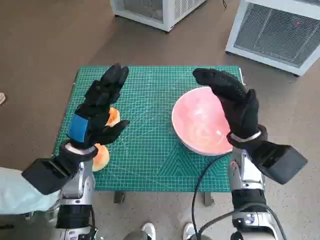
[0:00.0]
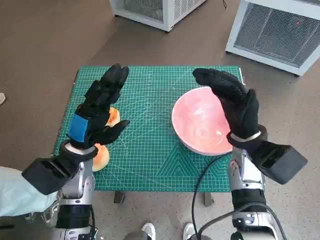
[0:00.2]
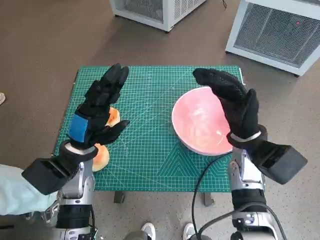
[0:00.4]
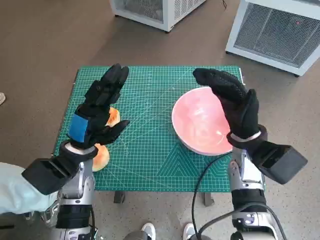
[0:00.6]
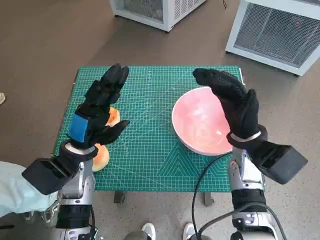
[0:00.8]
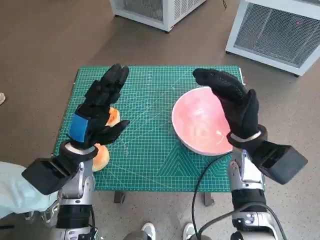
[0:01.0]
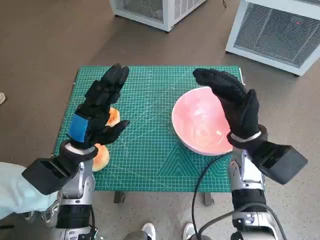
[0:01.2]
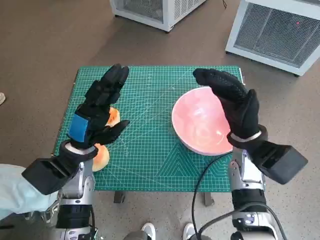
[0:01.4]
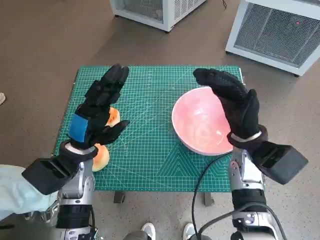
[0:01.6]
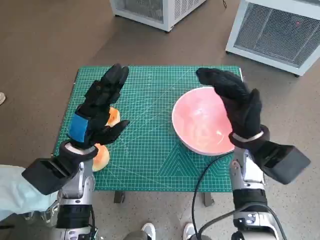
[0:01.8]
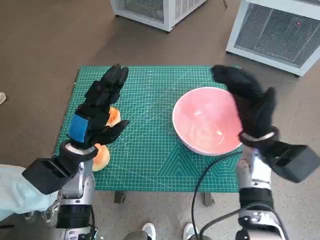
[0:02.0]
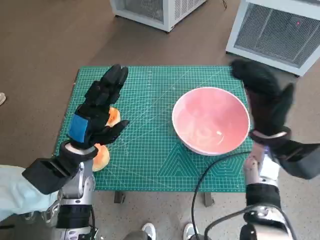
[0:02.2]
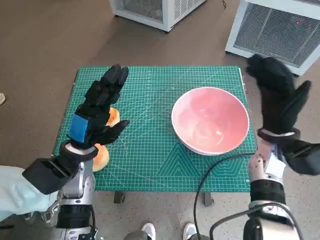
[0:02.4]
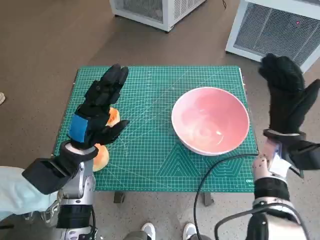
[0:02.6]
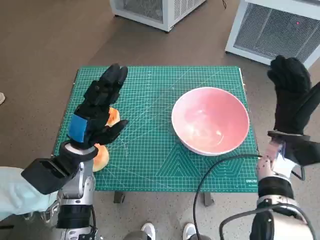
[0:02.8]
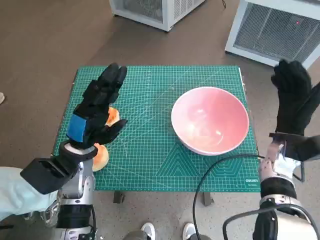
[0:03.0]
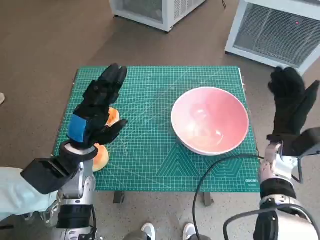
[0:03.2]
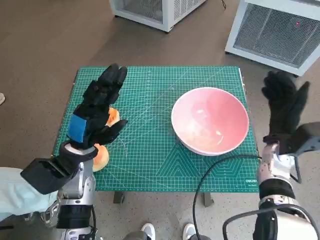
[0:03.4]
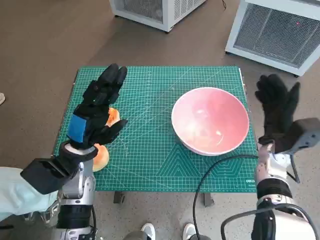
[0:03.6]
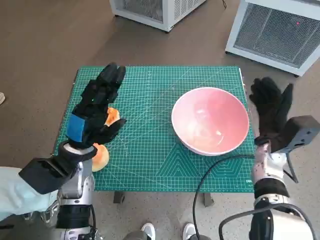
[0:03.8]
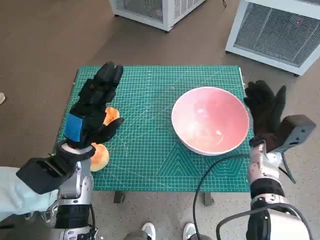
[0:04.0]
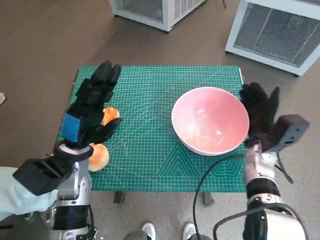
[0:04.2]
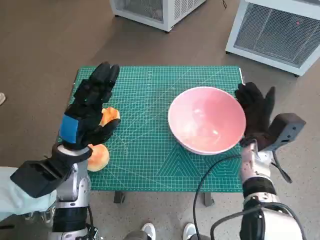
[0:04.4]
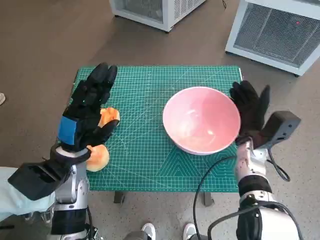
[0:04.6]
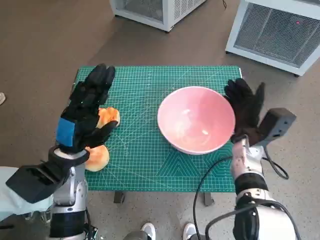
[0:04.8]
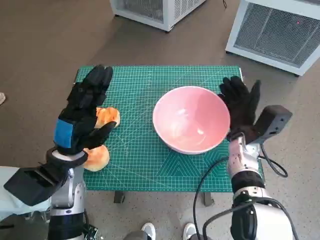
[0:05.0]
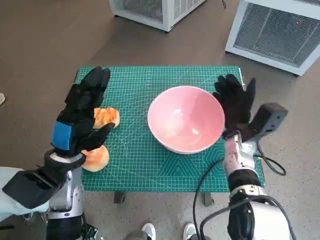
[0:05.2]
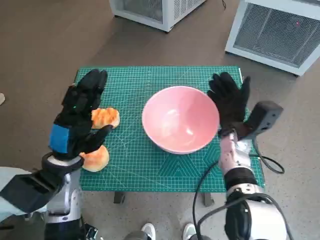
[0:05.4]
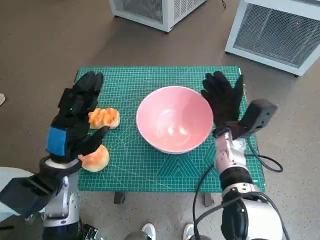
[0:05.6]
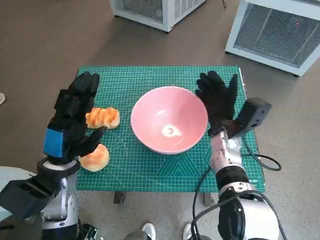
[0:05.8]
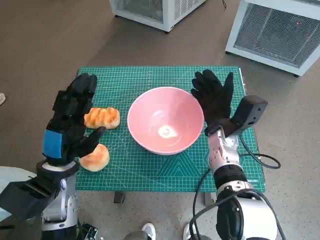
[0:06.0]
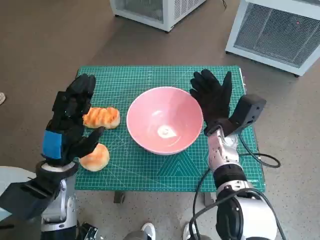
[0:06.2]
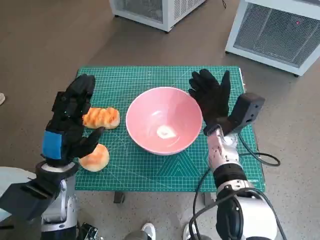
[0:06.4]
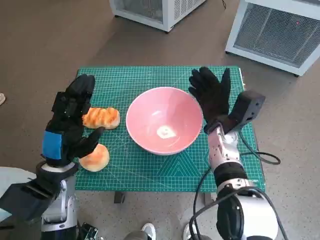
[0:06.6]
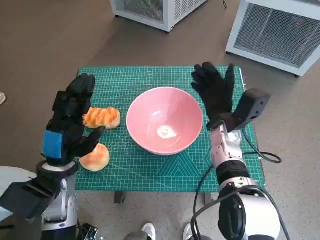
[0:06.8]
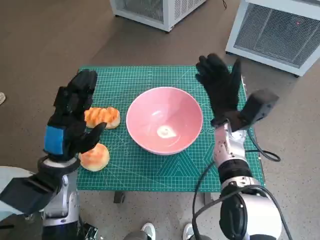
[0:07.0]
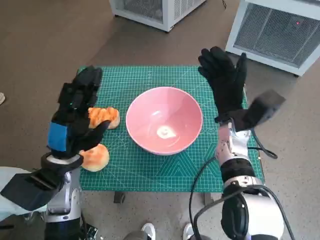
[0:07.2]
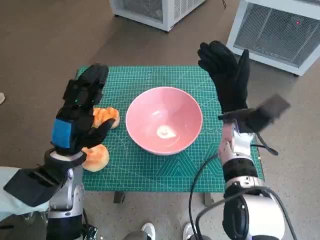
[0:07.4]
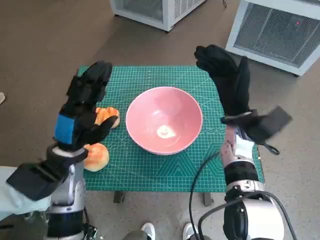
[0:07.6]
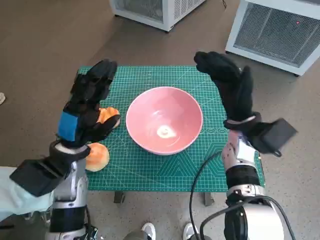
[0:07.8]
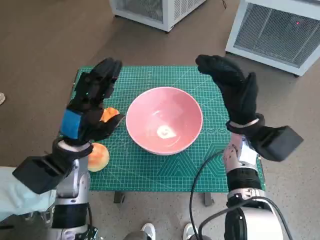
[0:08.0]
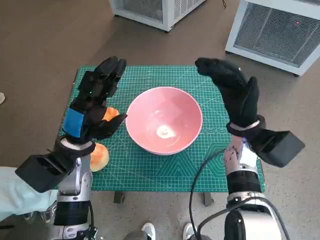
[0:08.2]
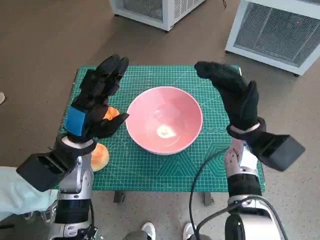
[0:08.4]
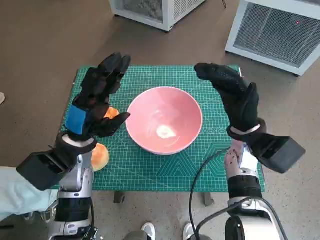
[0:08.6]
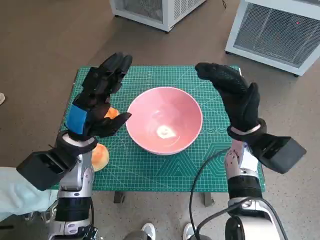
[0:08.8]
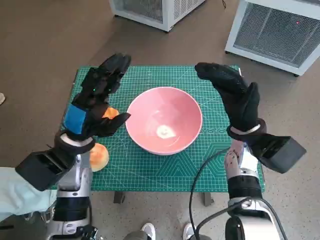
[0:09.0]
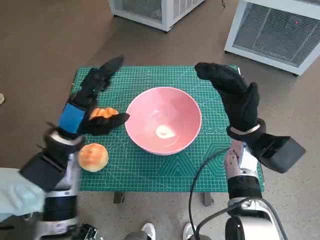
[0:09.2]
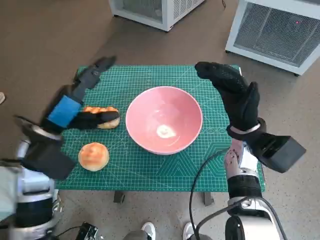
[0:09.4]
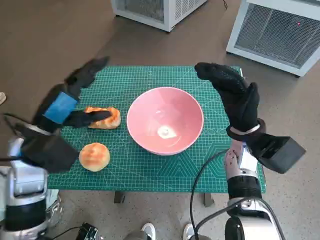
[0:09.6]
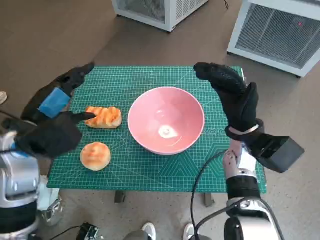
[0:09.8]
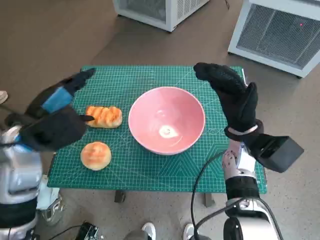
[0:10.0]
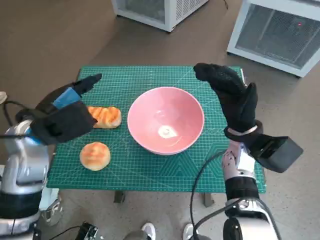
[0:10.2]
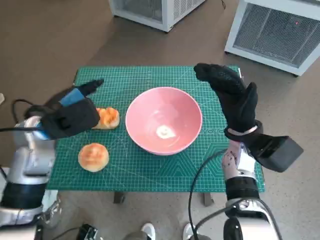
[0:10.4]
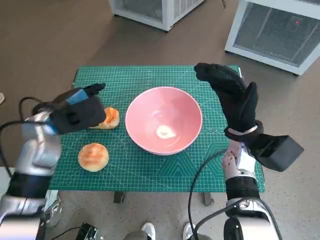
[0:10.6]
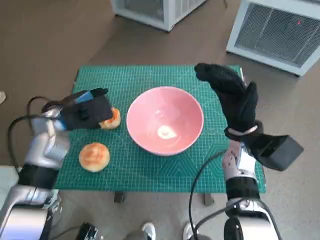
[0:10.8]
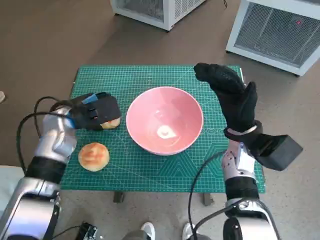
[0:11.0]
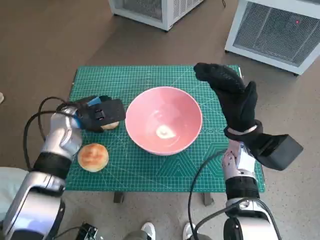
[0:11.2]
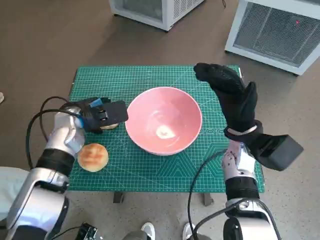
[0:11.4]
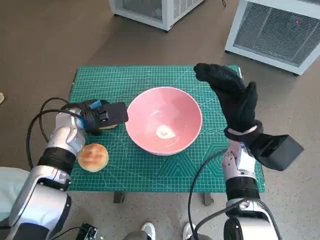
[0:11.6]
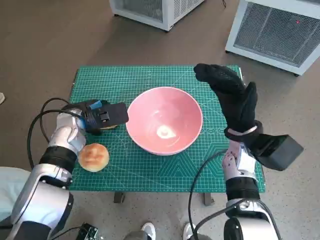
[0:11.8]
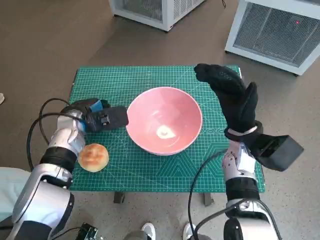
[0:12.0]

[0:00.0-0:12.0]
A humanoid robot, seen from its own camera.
Task of the whole recording: Push the bowl into the center of the table and put the bread into the bowl.
Step, 0:00.0 to 0:06.8: Move the pink bowl to the center of table with right hand.
Step, 0:07.2 to 0:11.8: Grasp the long bread with left hand.
0:01.6 to 0:03.0: The right hand moves to the right, roughly 10 cm.
0:03.0 to 0:04.4: The right hand ends up roughly 5 cm from where it was.
0:04.4 to 0:06.0: The right hand moves to the left, roughly 10 cm.
0:06.0 to 0:07.6: The right hand shifts by some 5 cm.
0:07.6 to 0:09.0: The hands stay close to where they were, moving slightly.
0:09.0 to 0:10.4: The left hand shifts by some 5 cm.
0:10.4 to 0:12.0: The left hand shifts roughly 10 cm downward and forward.

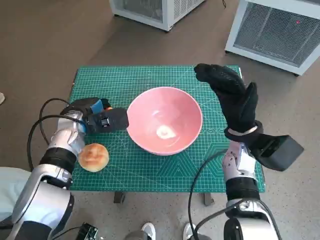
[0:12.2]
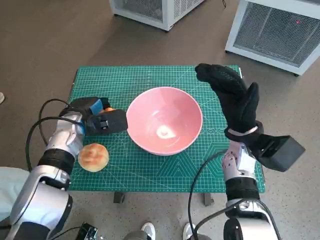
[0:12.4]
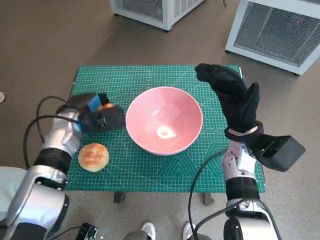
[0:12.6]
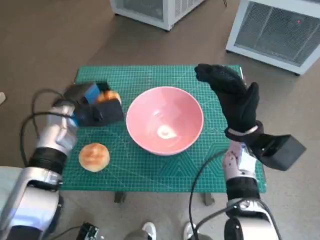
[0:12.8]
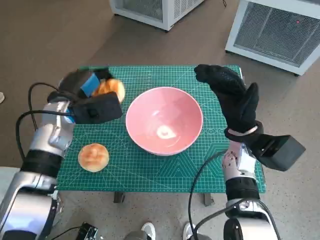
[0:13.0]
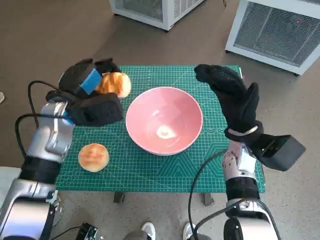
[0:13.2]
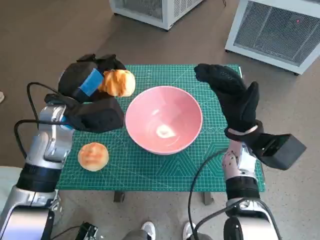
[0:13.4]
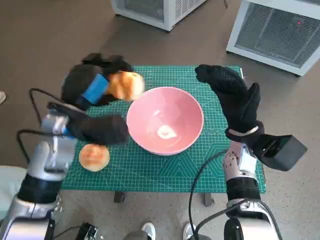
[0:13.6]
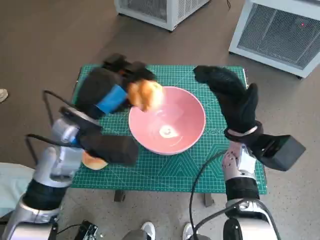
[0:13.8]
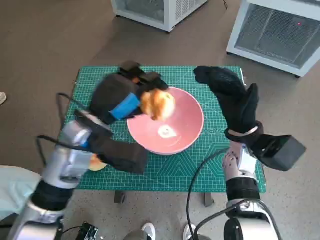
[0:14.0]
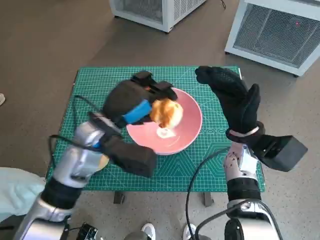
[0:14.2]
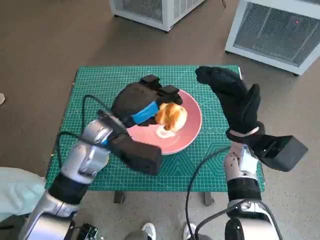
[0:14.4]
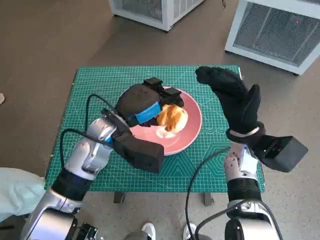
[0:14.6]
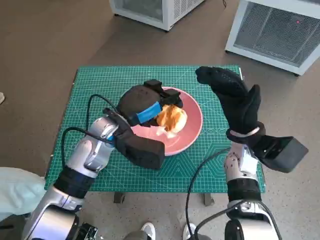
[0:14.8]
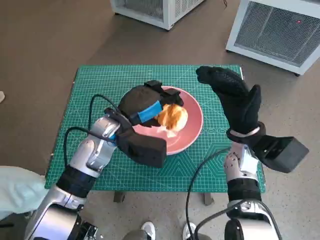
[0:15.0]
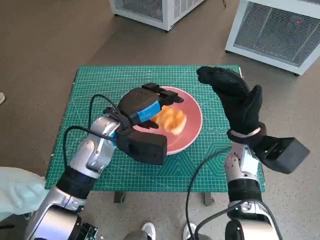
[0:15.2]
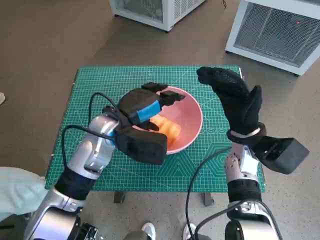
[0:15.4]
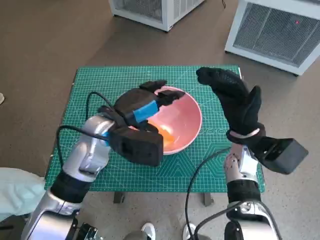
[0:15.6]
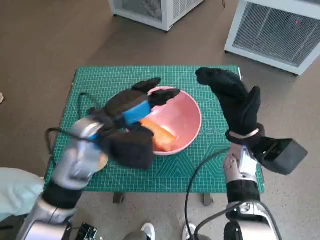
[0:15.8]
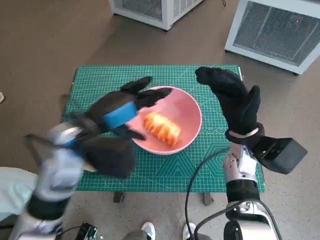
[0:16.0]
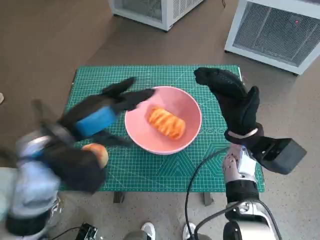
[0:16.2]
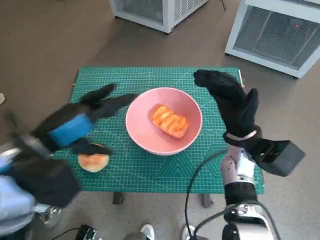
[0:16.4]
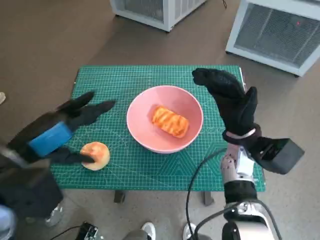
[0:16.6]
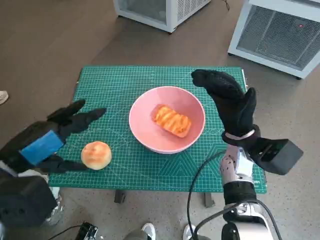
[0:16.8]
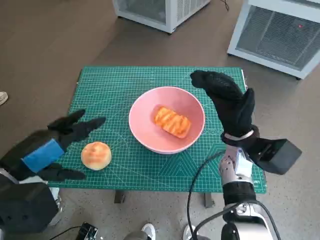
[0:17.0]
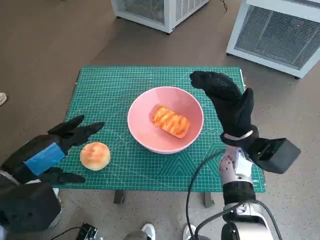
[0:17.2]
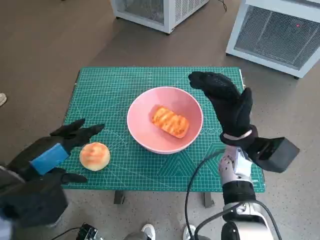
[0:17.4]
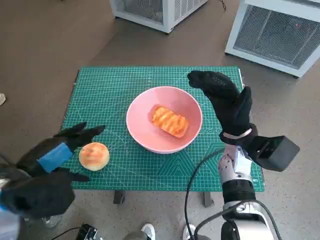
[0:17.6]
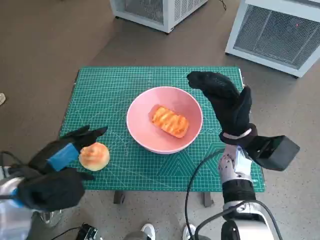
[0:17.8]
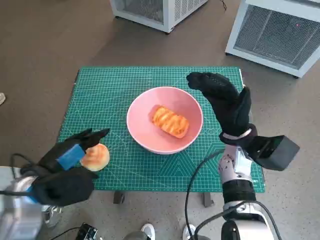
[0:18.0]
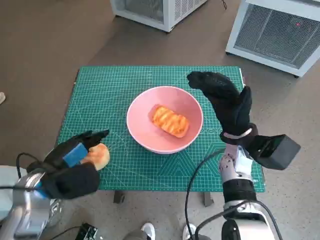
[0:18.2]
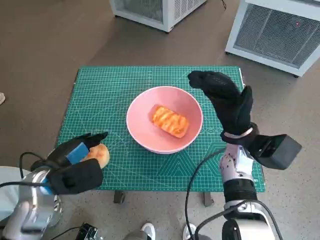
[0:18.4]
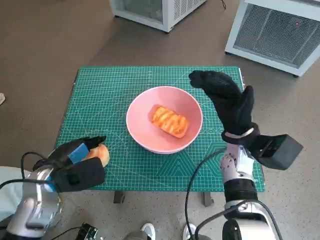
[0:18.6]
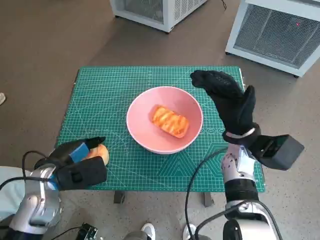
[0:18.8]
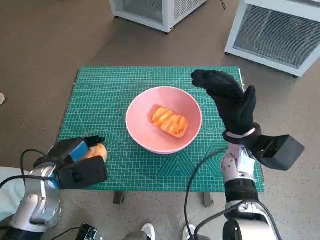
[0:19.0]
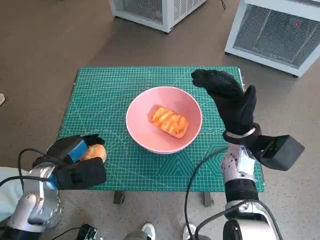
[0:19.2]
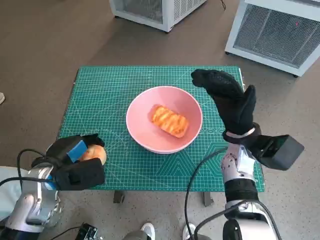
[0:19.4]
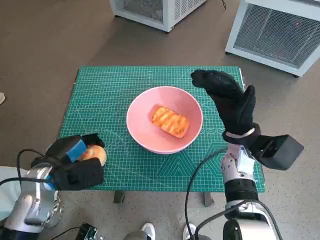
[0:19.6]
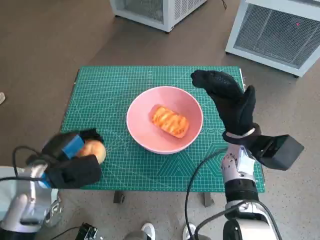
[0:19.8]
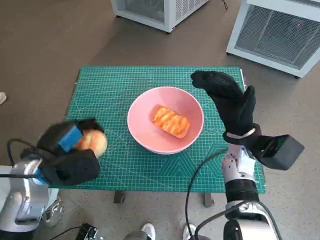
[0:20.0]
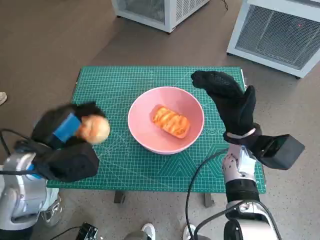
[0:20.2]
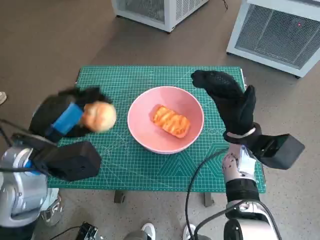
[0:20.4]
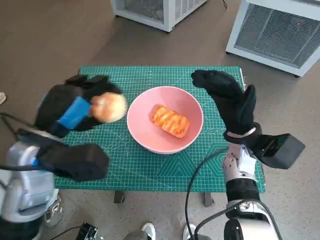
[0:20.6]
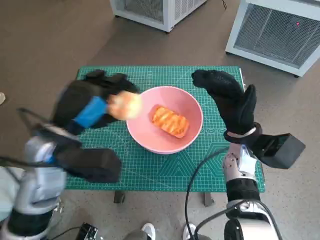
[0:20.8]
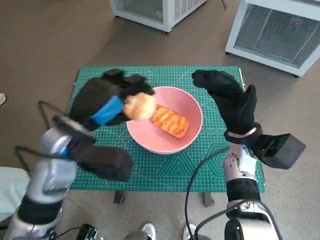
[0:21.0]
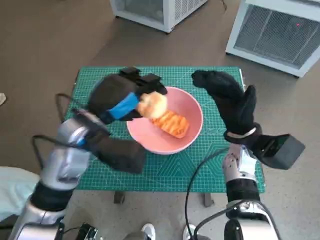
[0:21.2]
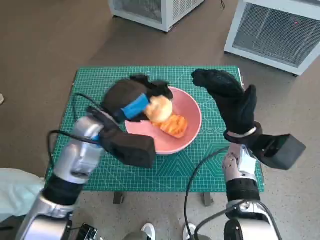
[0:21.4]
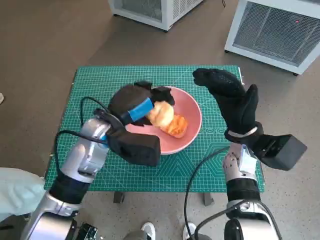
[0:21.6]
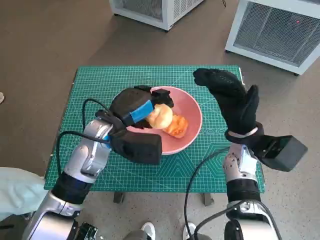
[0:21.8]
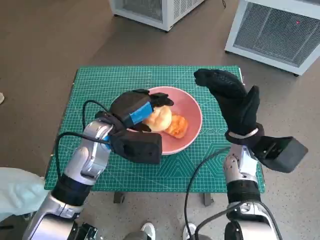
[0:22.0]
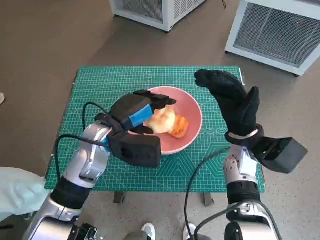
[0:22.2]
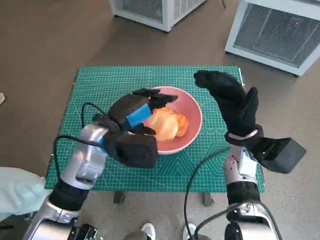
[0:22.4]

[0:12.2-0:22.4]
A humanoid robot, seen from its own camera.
Task of the whole recording: Push the bowl into the center of the table and put the bread into the bowl.
Step, 0:12.2 to 0:16.0: Place the long bread in pink bowl with left hand.
Step, 0:16.2 to 0:18.6: Grasp the round bread with left hand.
0:12.2 to 0:13.6: The left hand is displaced upward by roughly 10 cm.
0:13.6 to 0:15.2: The left hand shifts about 5 cm to the right.
0:15.2 to 0:16.6: The left hand travels backward, to the left and upward by approximately 20 cm.
0:16.6 to 0:18.0: The left hand moves downward, roughly 10 cm.
0:18.0 to 0:19.4: The left hand ends up approximately 5 cm from where it was.
0:19.4 to 0:21.0: The left hand travels upward and to the right by some 15 cm.
0:21.0 to 0:22.4: The left hand shifts by some 5 cm.
